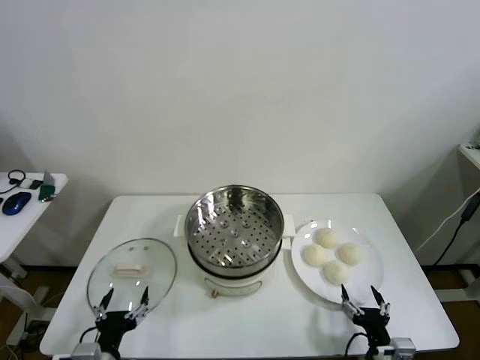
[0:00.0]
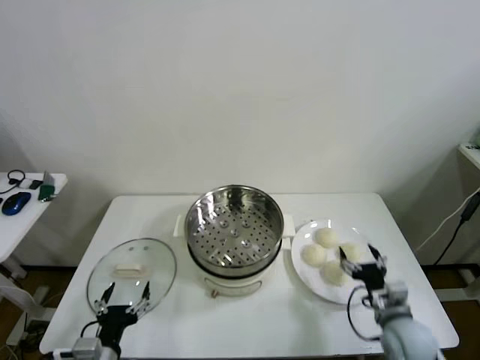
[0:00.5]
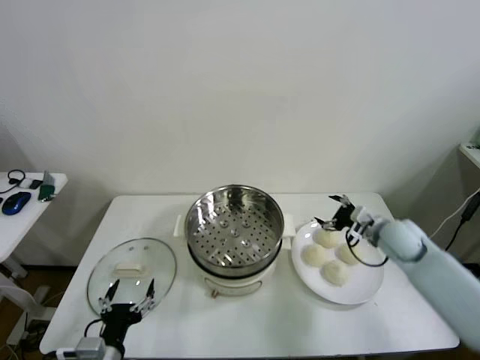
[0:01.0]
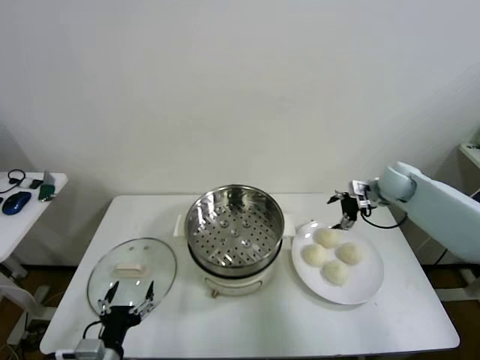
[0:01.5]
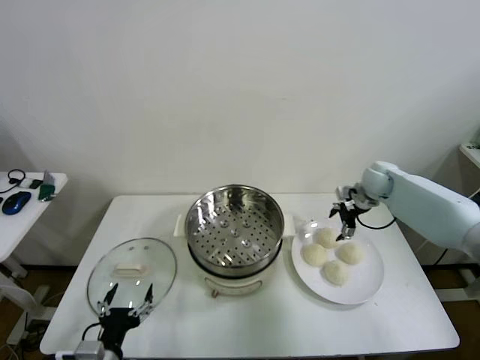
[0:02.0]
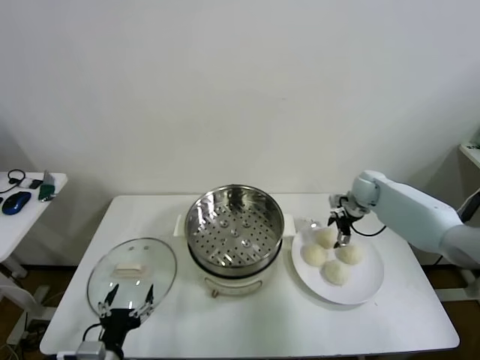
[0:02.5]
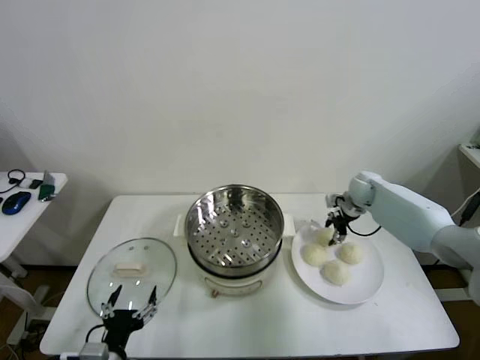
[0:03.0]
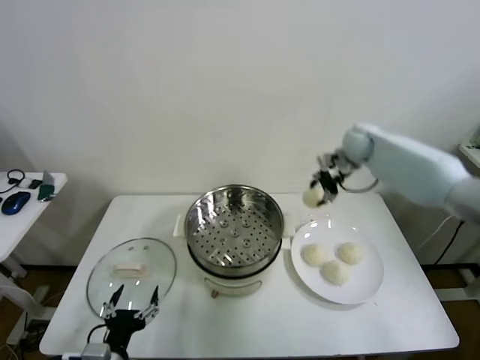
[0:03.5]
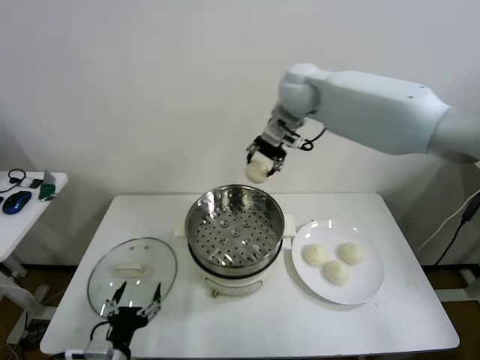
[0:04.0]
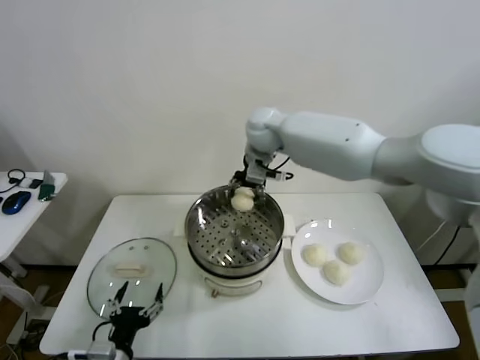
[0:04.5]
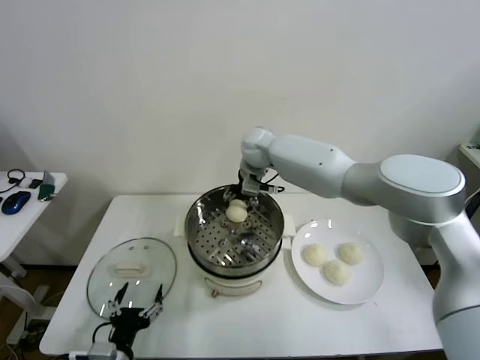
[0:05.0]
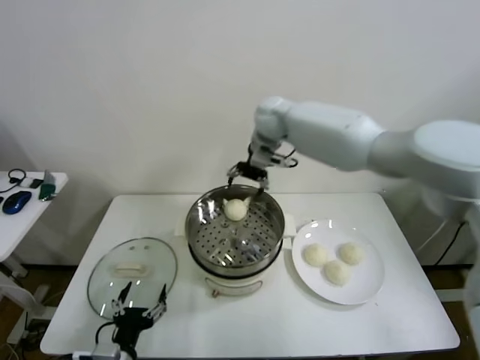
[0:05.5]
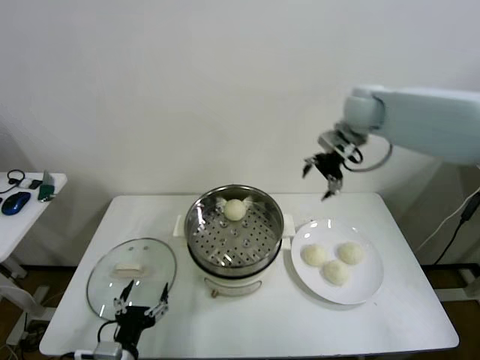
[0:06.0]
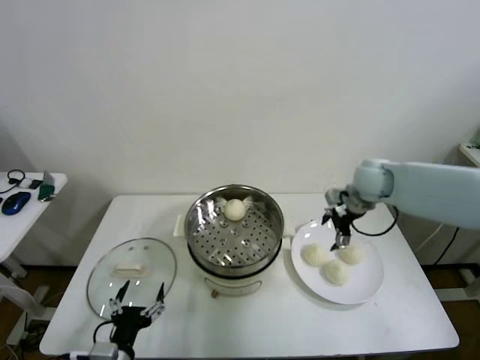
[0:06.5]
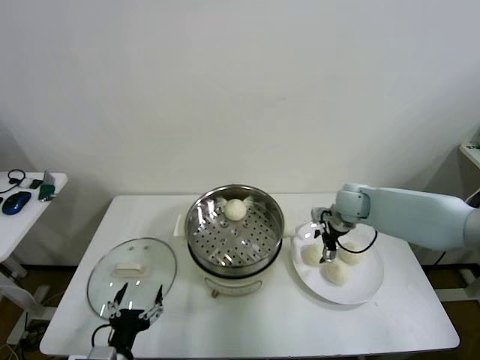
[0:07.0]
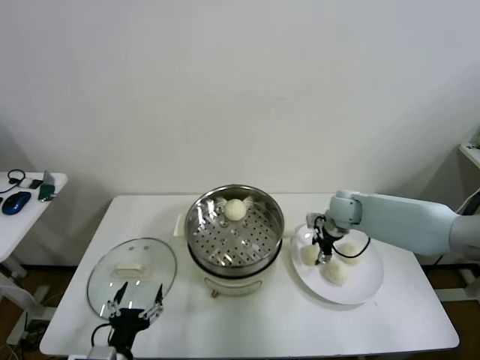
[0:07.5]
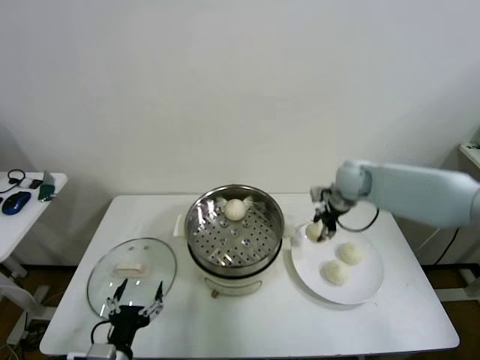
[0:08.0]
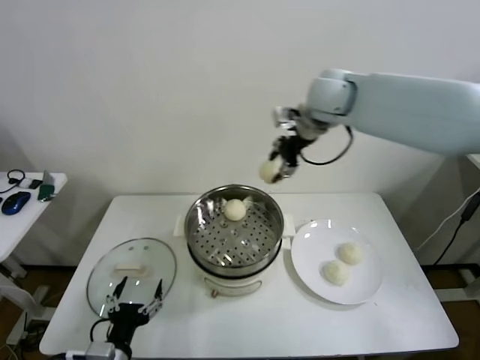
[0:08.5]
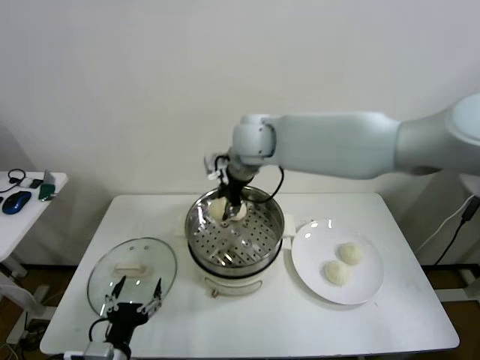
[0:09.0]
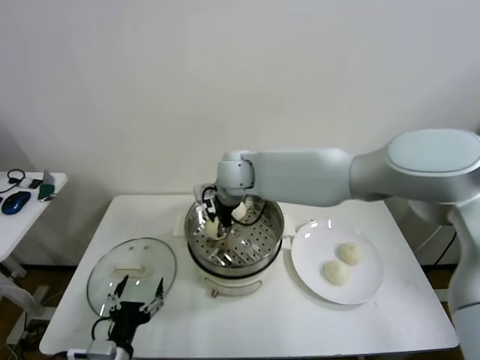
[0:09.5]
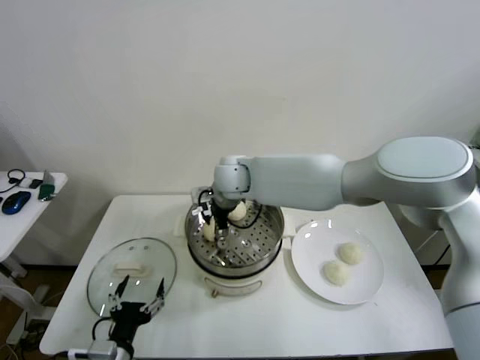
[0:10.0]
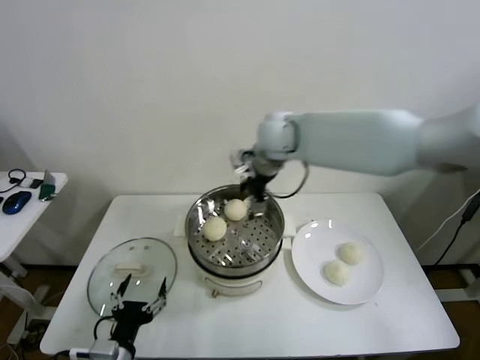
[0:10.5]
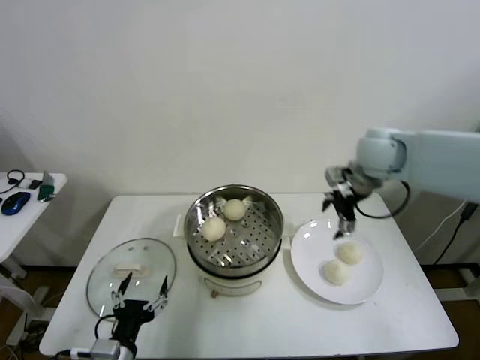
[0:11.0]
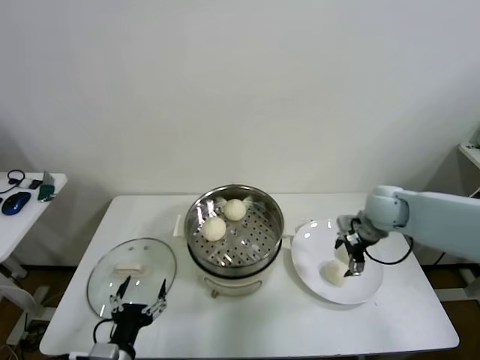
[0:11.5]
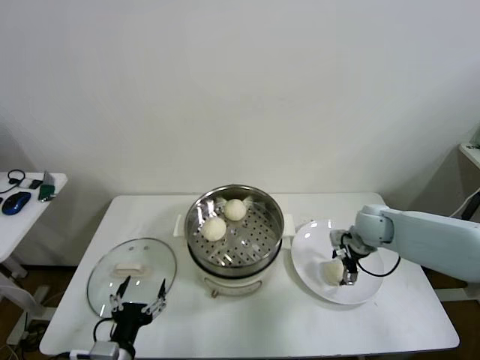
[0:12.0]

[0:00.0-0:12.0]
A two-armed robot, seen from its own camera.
Step, 0:00.0 to 0:03.0: Grasp the baozi in the plate with right gripper.
Step, 0:03.5 to 0:05.0: Place the baozi on the steamer with right gripper.
Step, 0:05.5 to 0:07.5: Grasp the baozi in the plate with right gripper.
Step, 0:08.0 to 0:09.5: Place the baozi on the steamer with right gripper.
0:02.0 to 0:04.0: The right gripper moves to the left and upward, approximately 40 cm, and closes.
0:04.0 to 0:06.0: The right gripper shifts about 20 cm to the right, and opens.
0:06.0 to 0:08.0: The right gripper travels downward and back again, roughly 20 cm each way, and closes up.
0:08.0 to 0:10.0: The right gripper travels to the left by roughly 30 cm, and opens its fingers.
0:10.0 to 0:12.0: The right gripper heads to the right and downward, covering approximately 35 cm.

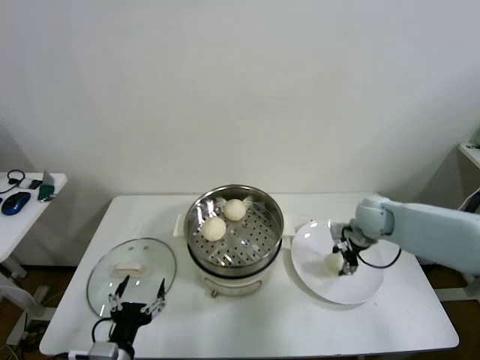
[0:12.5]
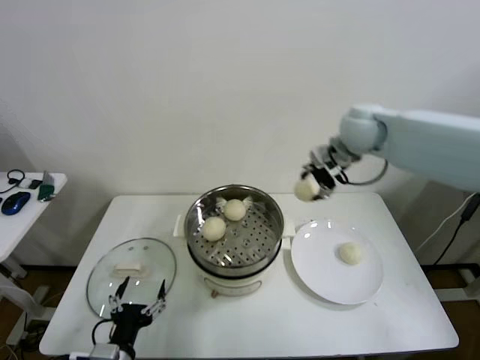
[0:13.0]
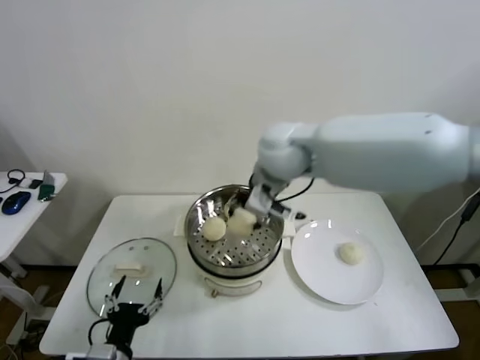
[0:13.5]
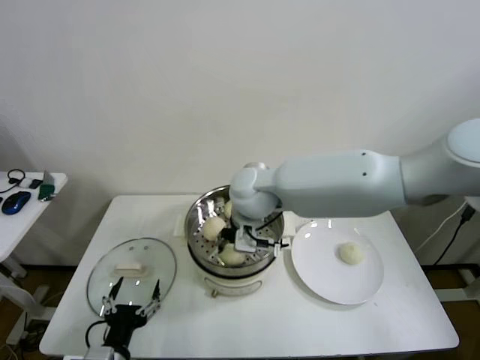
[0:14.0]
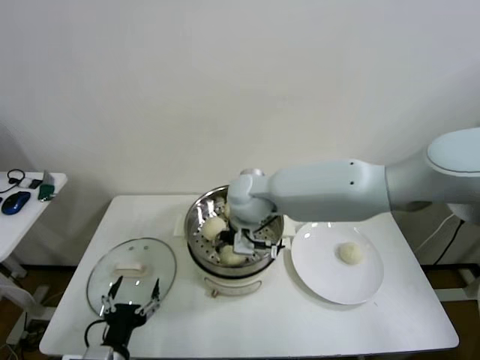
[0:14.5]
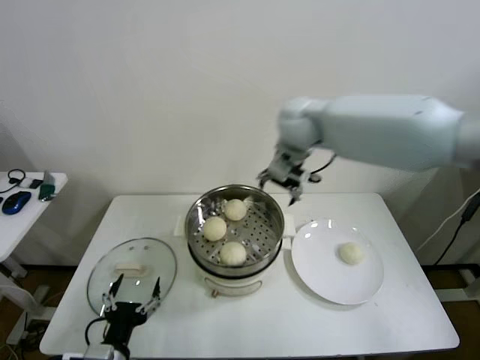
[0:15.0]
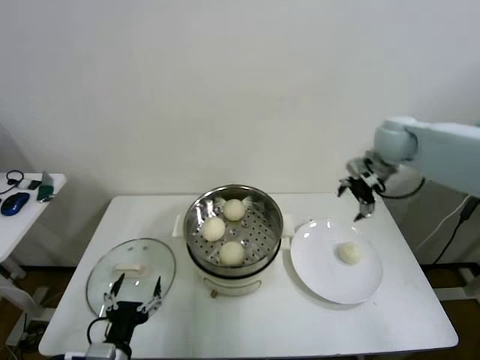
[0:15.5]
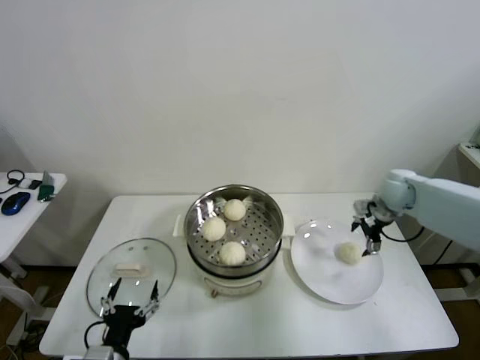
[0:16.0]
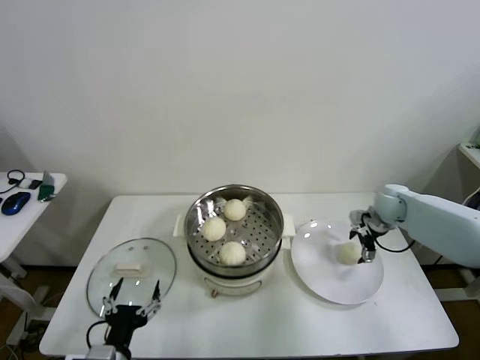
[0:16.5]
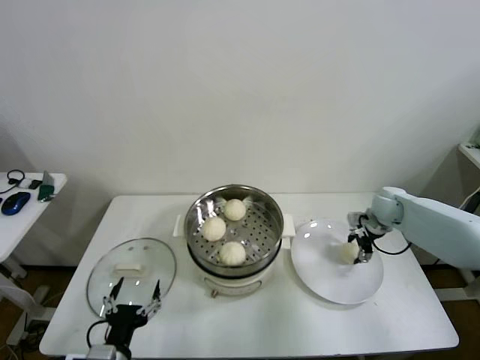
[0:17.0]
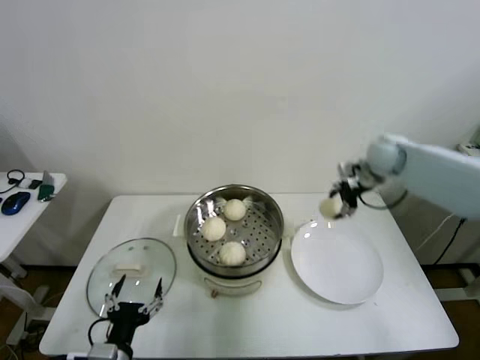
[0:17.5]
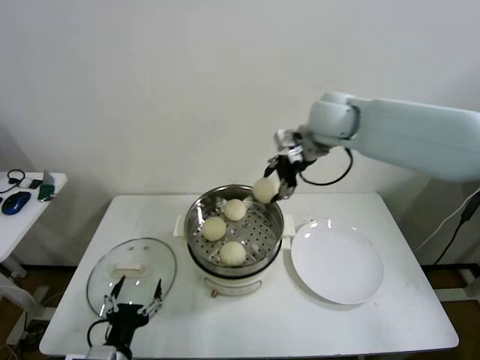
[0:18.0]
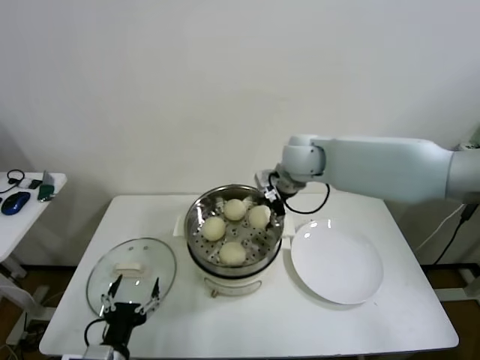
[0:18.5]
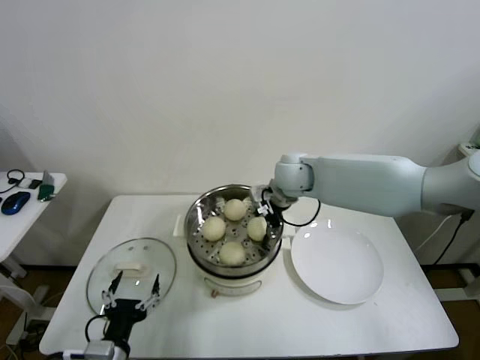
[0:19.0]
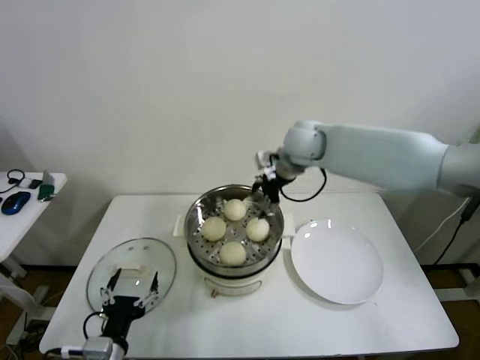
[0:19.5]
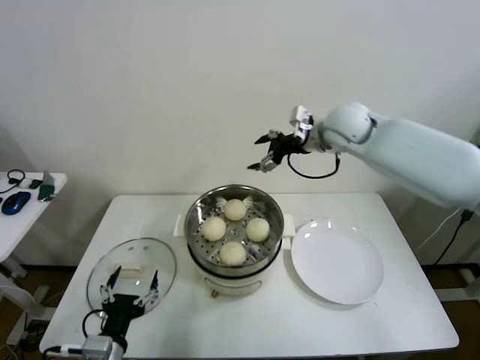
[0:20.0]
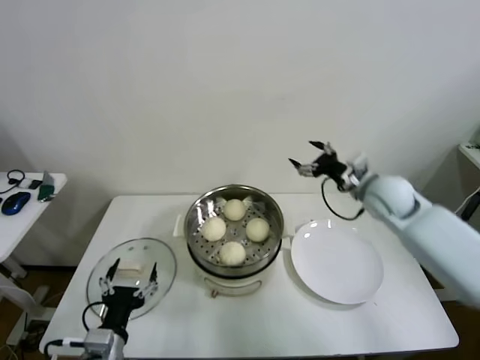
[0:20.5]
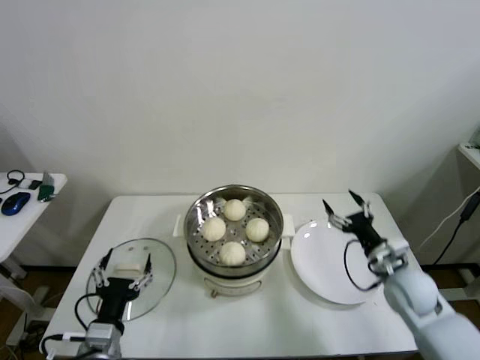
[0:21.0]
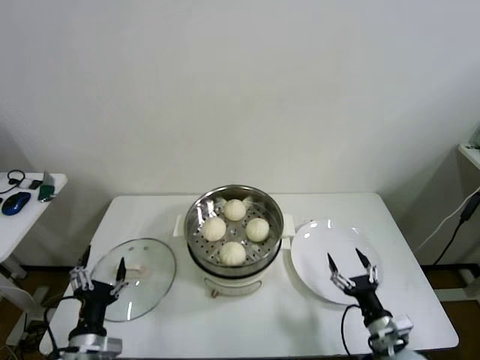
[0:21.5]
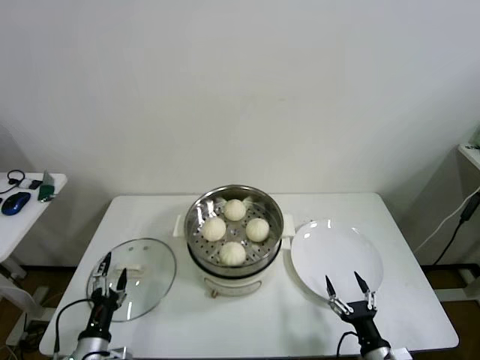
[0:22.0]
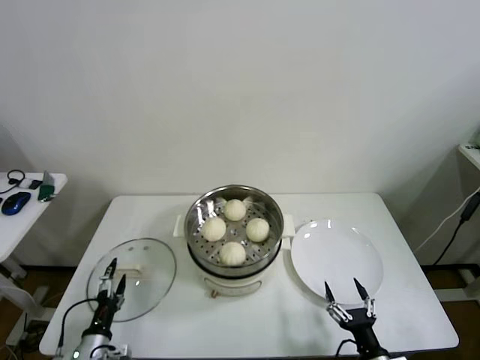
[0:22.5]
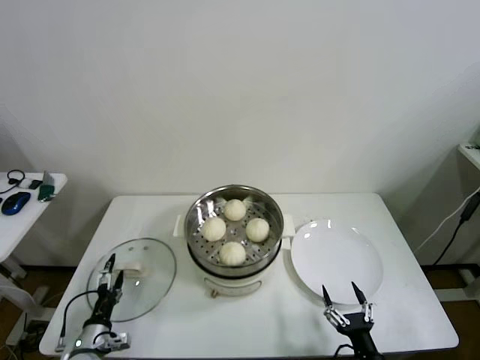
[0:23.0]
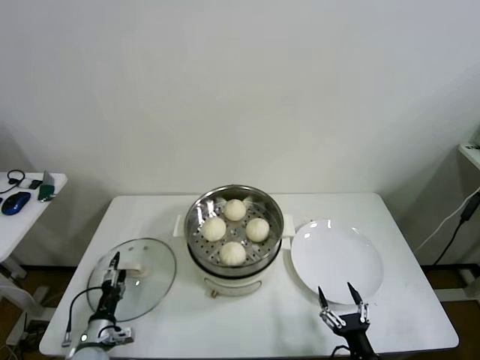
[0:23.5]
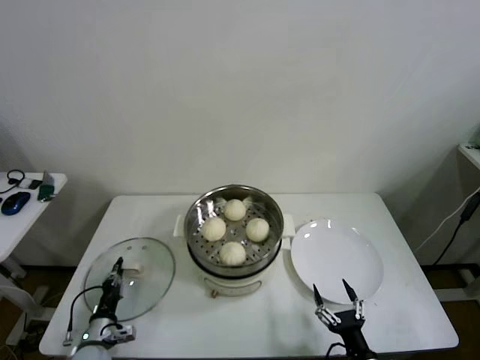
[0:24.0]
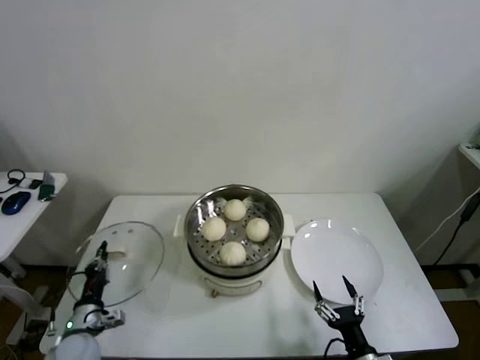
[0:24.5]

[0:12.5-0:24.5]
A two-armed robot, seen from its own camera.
Step, 0:12.5 to 0:14.0: Place the baozi on the steamer with right gripper.
Step, 0:15.0 to 0:16.5: Grasp the baozi in the plate with right gripper.
Step, 0:17.0 to 0:19.0: Place the baozi on the steamer with right gripper.
Step, 0:19.5 to 0:24.0: Grasp the pot lid with left gripper.
0:12.5 to 0:14.5: The right gripper goes roughly 30 cm to the left, and opens its fingers.
0:14.5 to 0:16.5: The right gripper shifts about 35 cm to the right.
0:16.5 to 0:18.5: The right gripper is displaced to the left and upward by approximately 30 cm, and closes.
0:18.5 to 0:20.5: The right gripper moves to the right and downward, approximately 20 cm, and opens up.
0:20.5 to 0:22.5: The right gripper moves backward and downward, approximately 40 cm. Meanwhile the left gripper goes about 15 cm downward and to the left.
0:22.5 to 0:24.5: The left gripper is displaced forward by roughly 5 cm, and closes up.

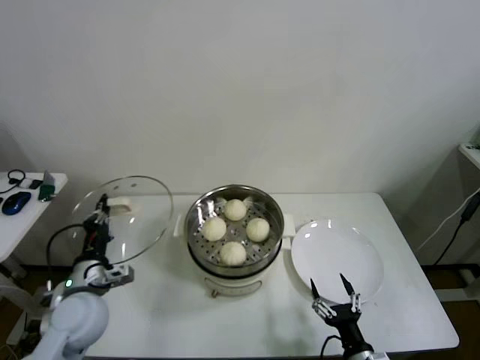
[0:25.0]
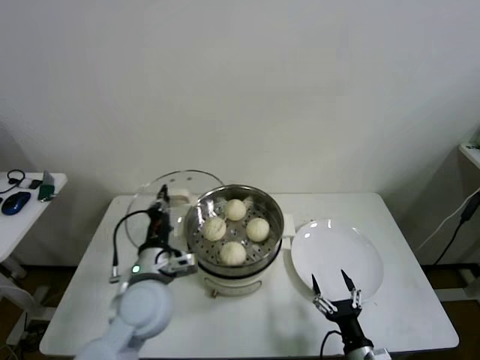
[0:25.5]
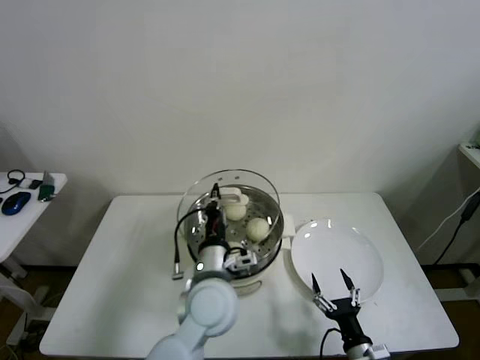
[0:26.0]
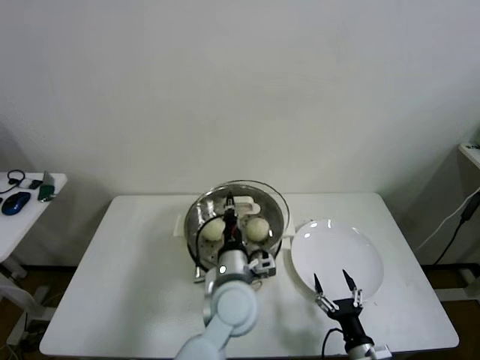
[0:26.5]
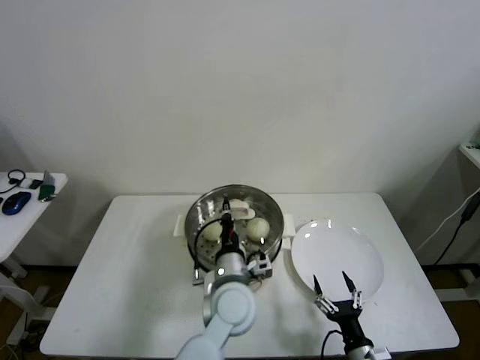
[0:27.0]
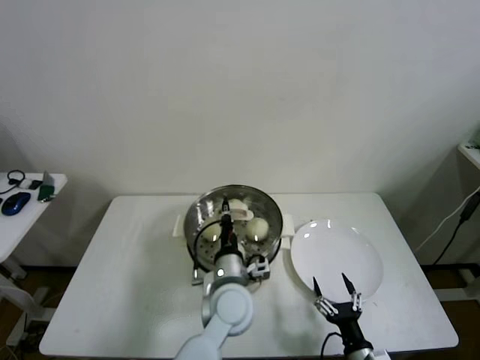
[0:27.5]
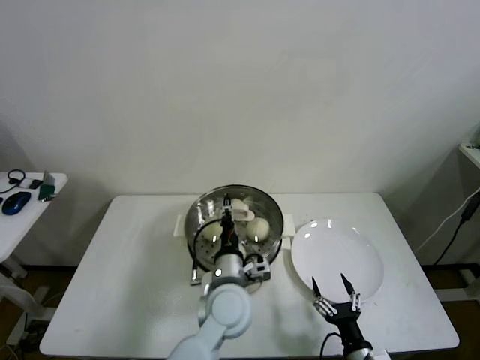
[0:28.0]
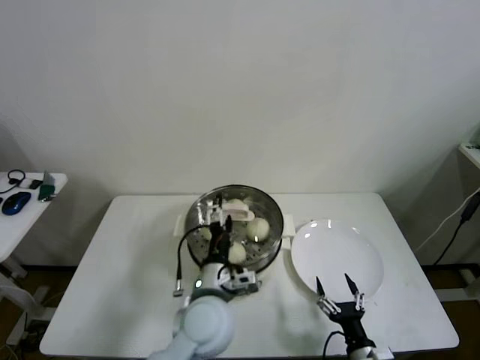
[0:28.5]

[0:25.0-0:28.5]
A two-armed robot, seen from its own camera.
Step, 0:25.0 to 0:28.0: Place the pot lid on the steamer with left gripper.
0:25.0 to 0:27.0: The left gripper heads to the right, covering approximately 30 cm.
0:27.0 to 0:28.5: The left gripper shifts by approximately 5 cm, and opens up.
